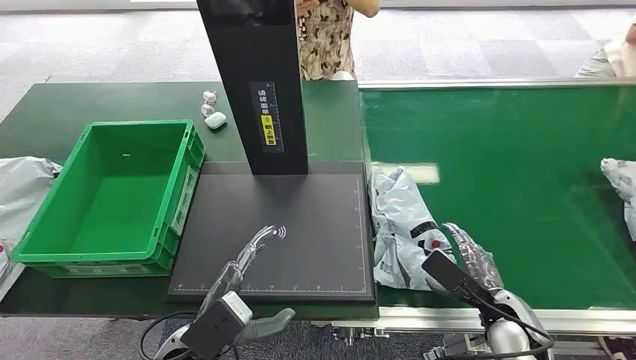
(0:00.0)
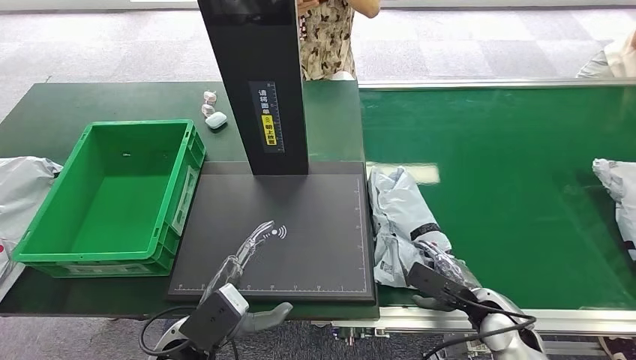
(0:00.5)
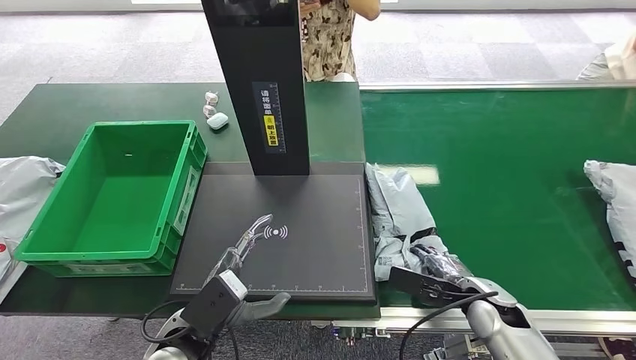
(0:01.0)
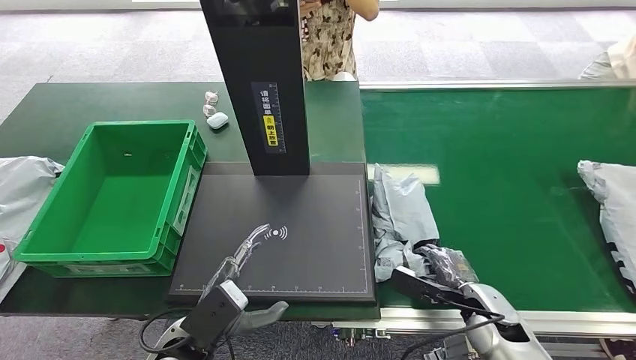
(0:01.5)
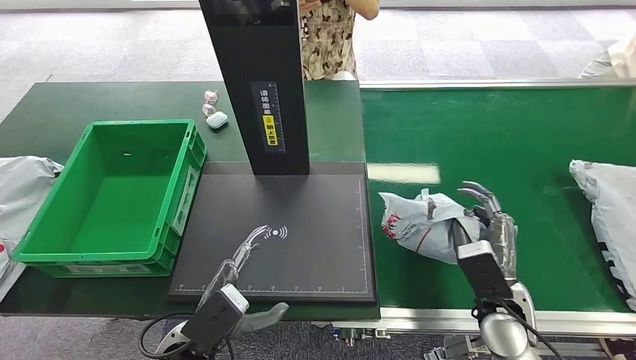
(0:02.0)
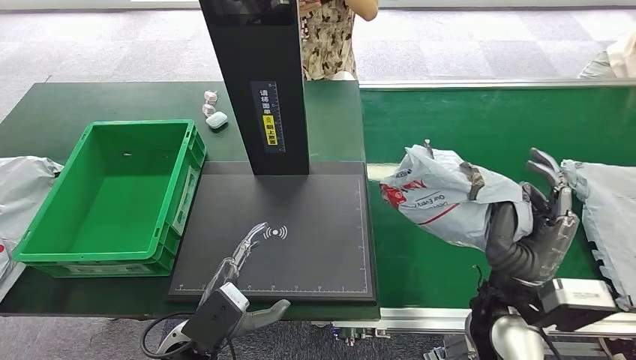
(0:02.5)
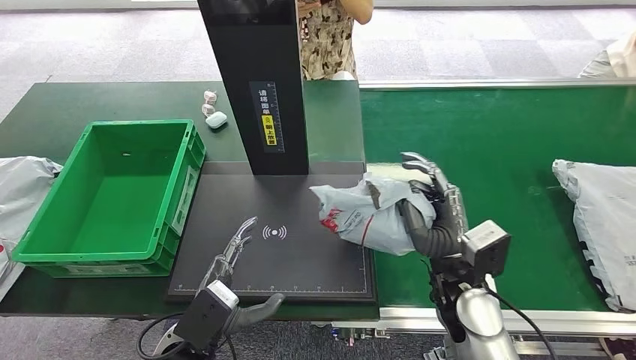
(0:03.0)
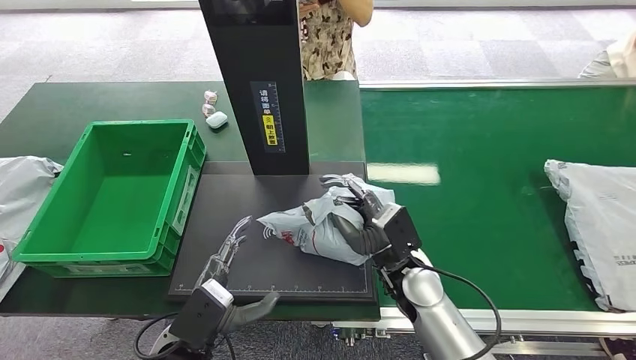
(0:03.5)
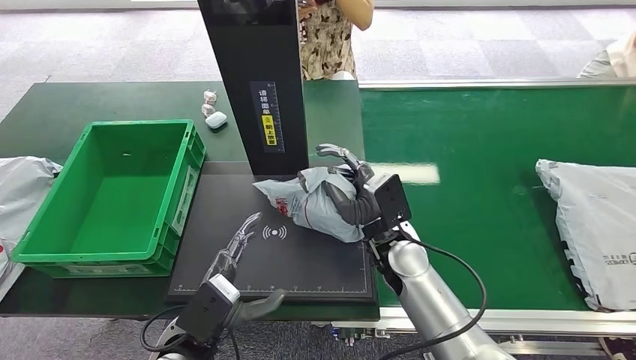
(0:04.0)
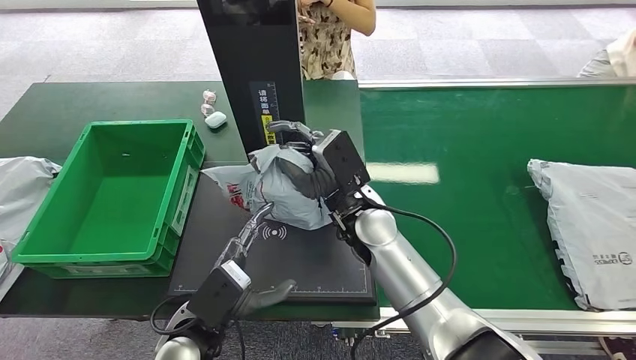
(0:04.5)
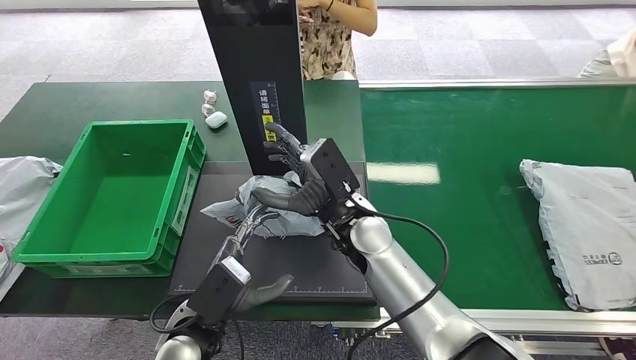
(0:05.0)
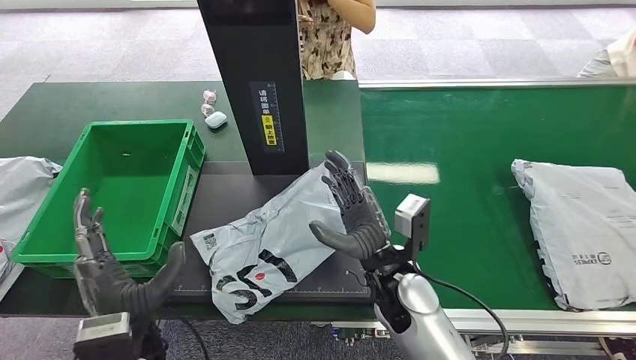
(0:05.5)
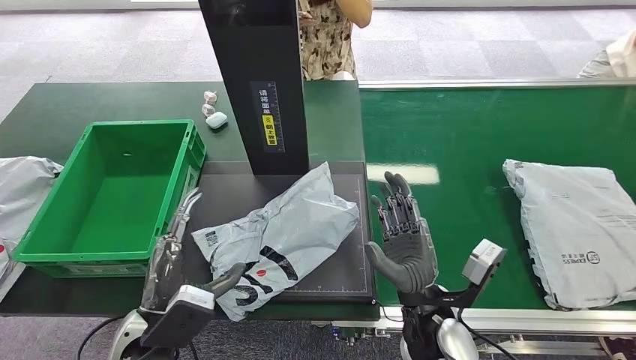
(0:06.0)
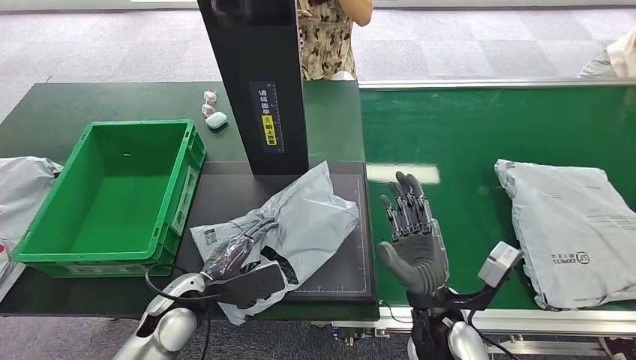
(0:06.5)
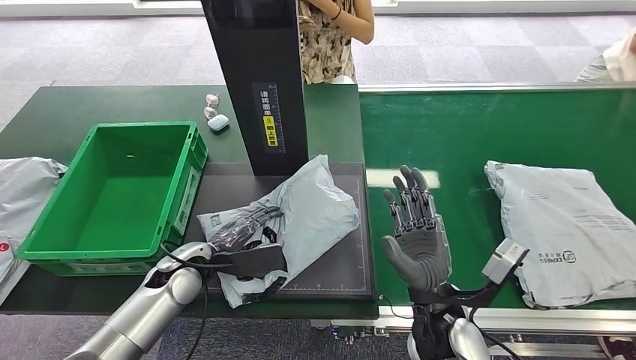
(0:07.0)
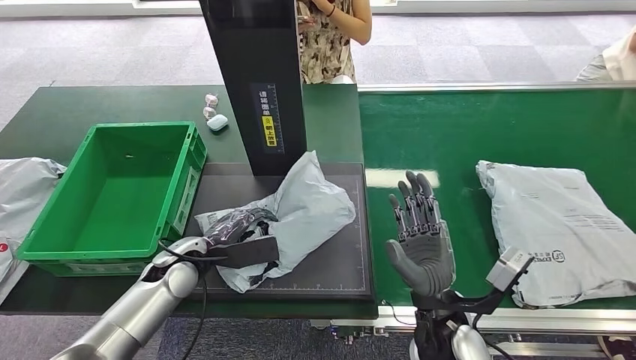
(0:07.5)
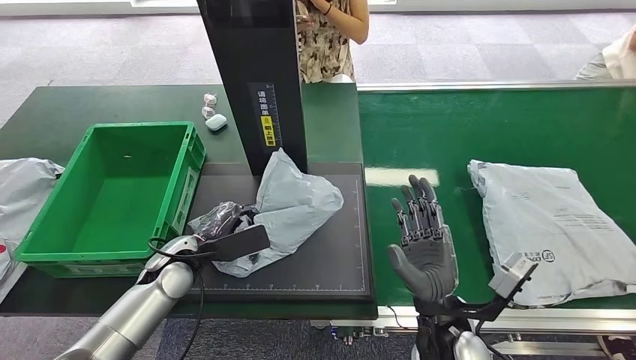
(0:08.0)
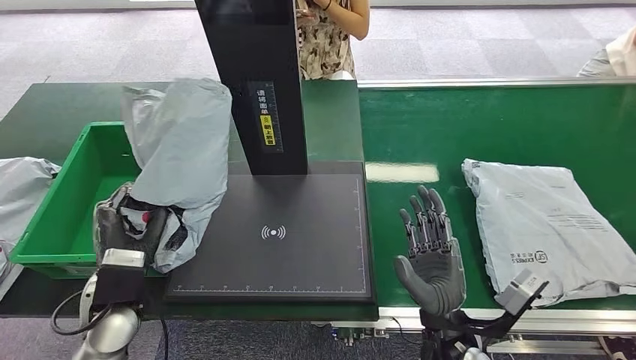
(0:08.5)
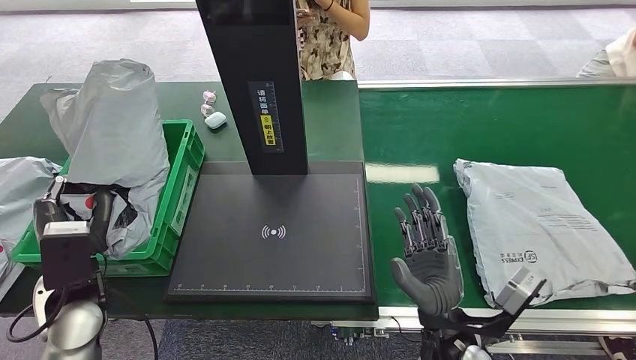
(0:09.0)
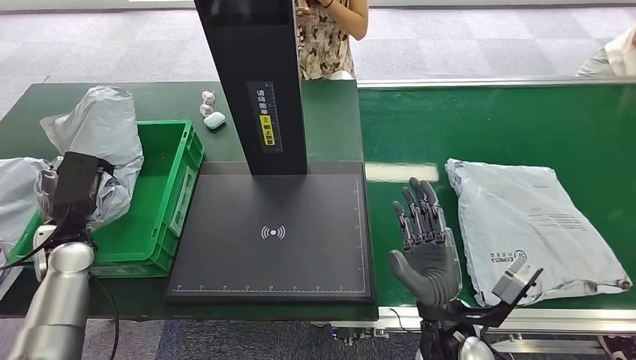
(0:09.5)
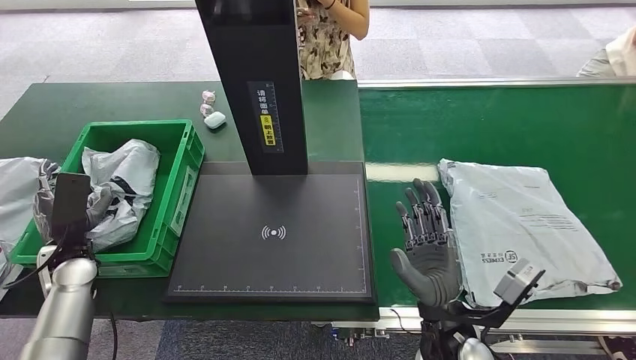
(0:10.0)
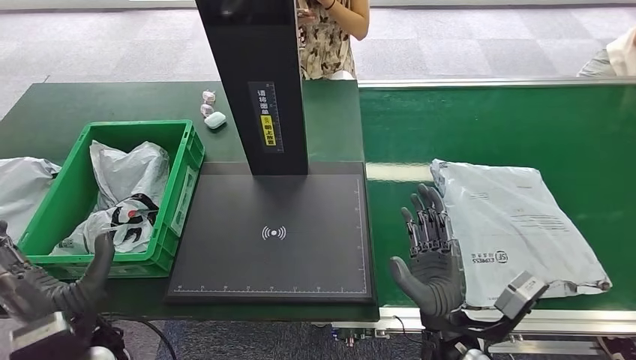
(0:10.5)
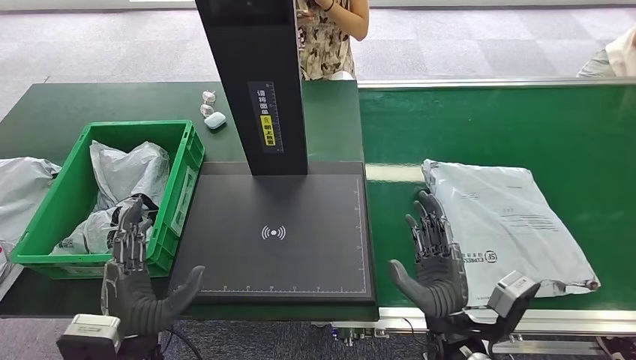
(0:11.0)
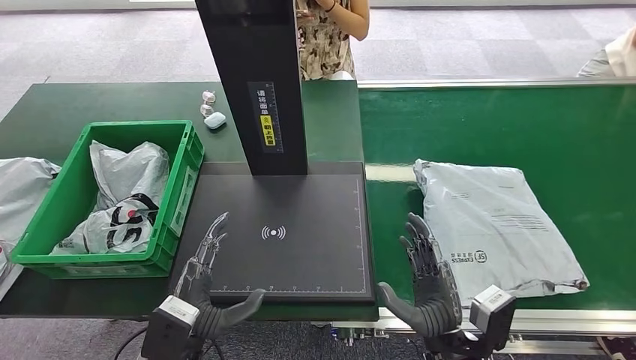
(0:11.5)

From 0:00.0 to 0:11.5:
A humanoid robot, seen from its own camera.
Step, from 0:00.0 to 0:02.5: Pick up the package from the conveyor belt.
Step, from 0:03.0 to 0:06.5: Place the package onto the inbound machine.
Step, from 0:07.0 to 0:08.5: Pick up the package from the inbound machine.
Step, from 0:09.0 to 0:11.5: Place the package into the parcel locker.

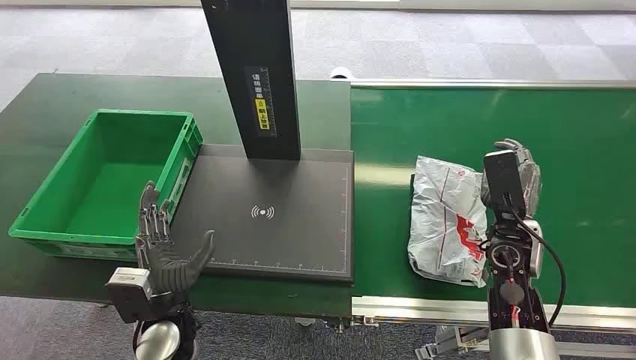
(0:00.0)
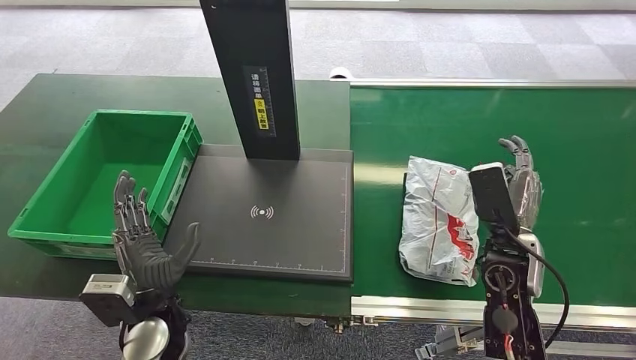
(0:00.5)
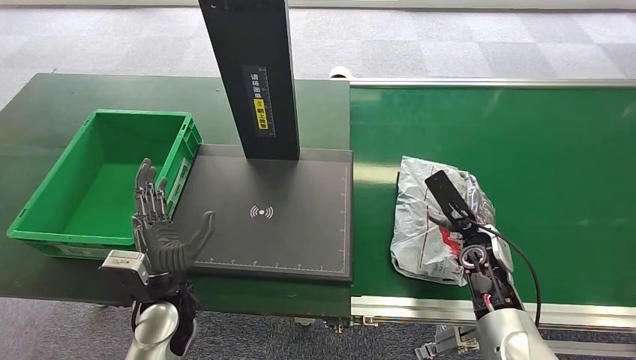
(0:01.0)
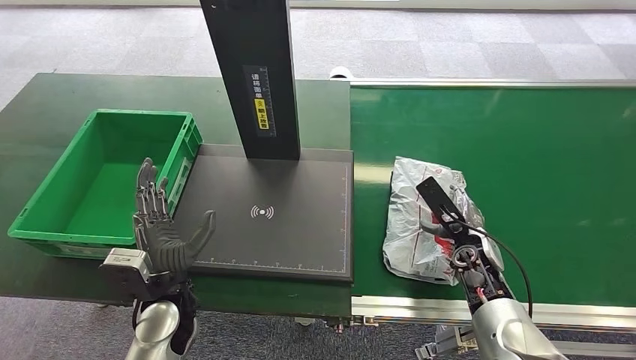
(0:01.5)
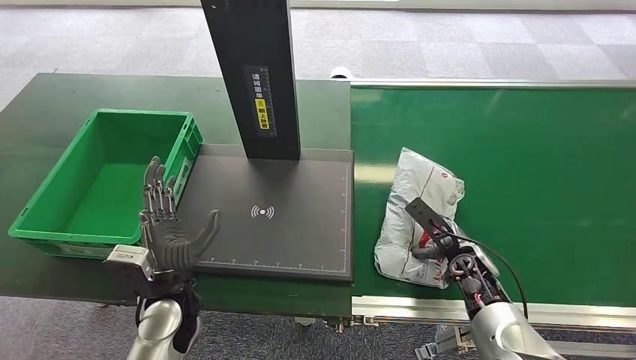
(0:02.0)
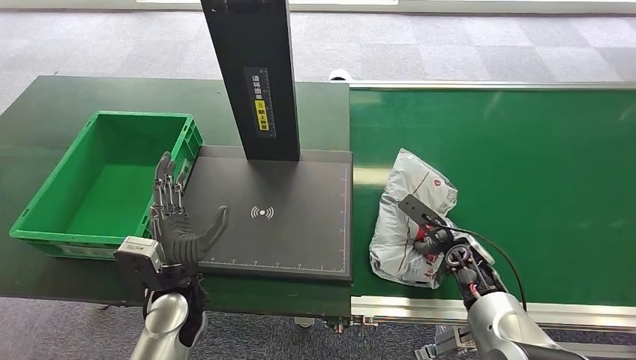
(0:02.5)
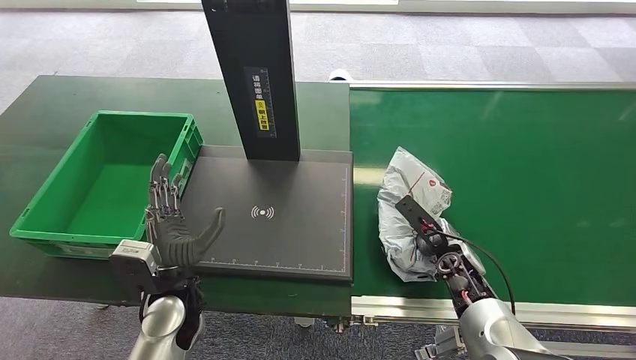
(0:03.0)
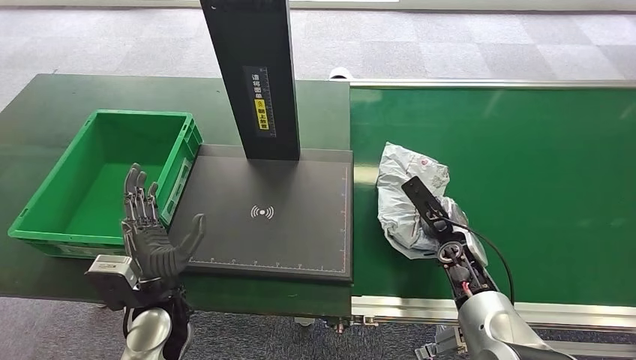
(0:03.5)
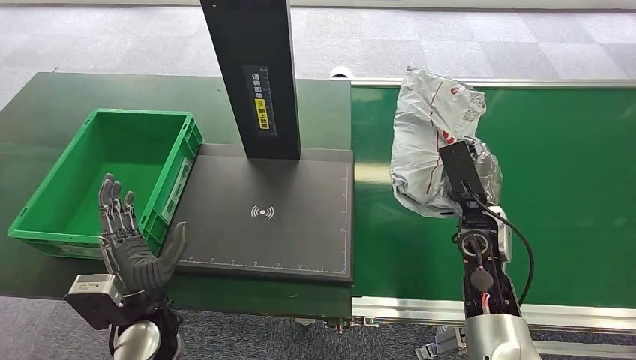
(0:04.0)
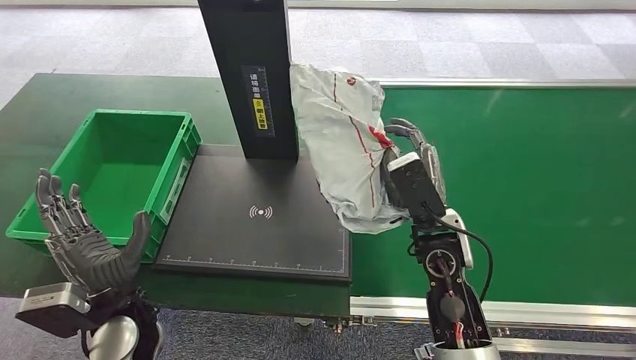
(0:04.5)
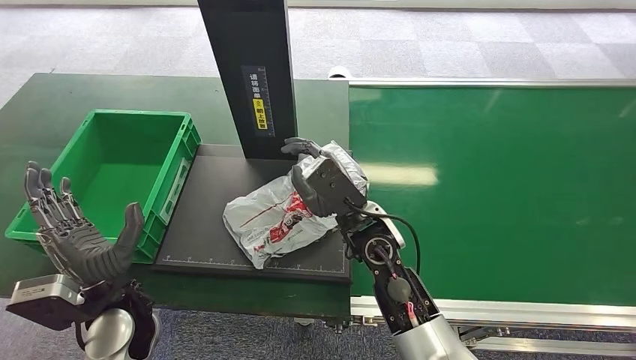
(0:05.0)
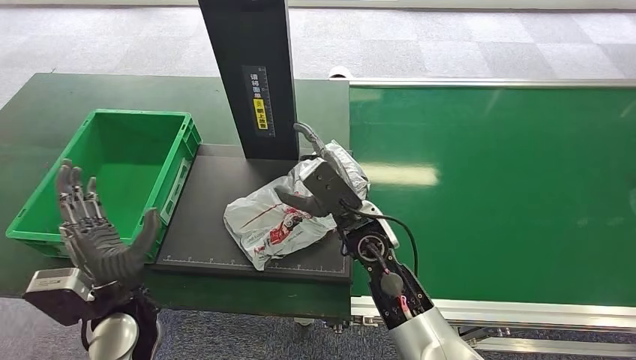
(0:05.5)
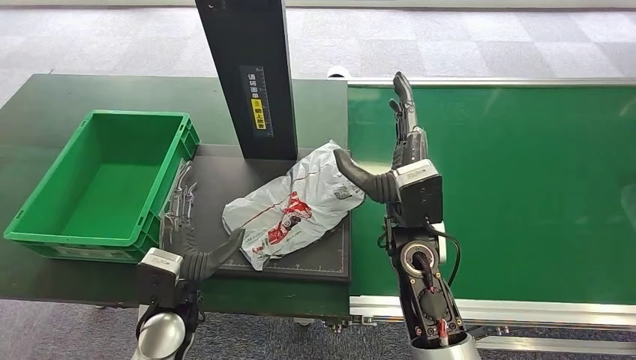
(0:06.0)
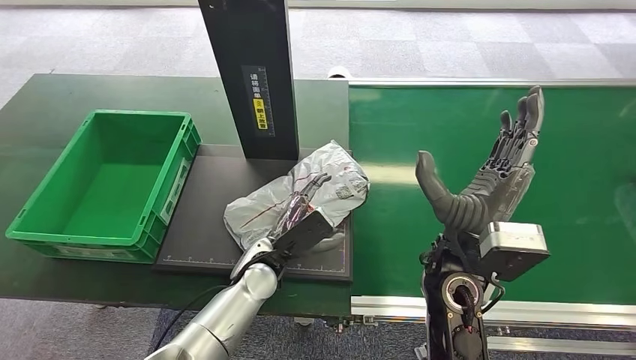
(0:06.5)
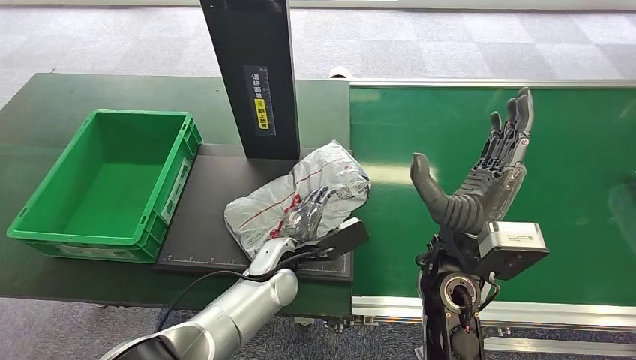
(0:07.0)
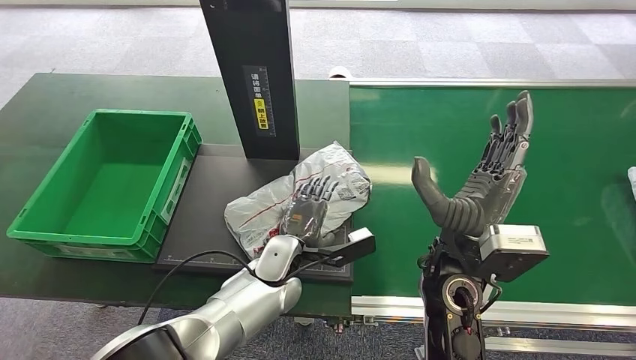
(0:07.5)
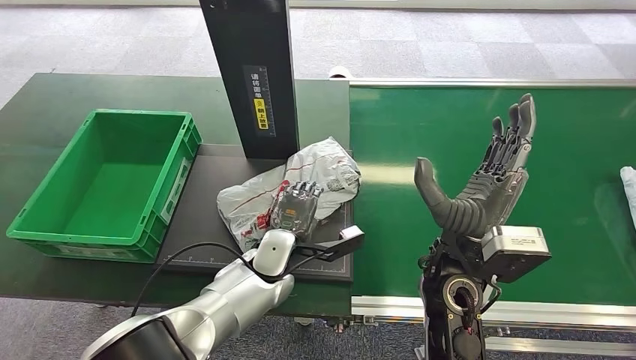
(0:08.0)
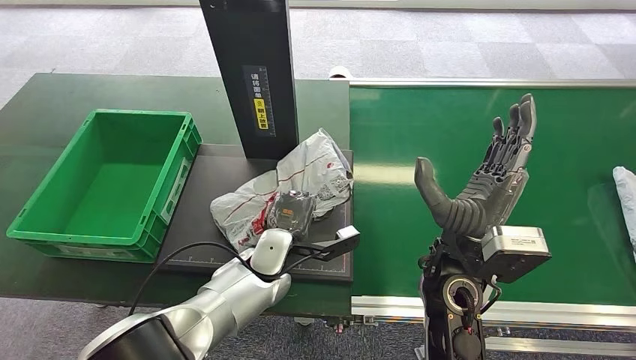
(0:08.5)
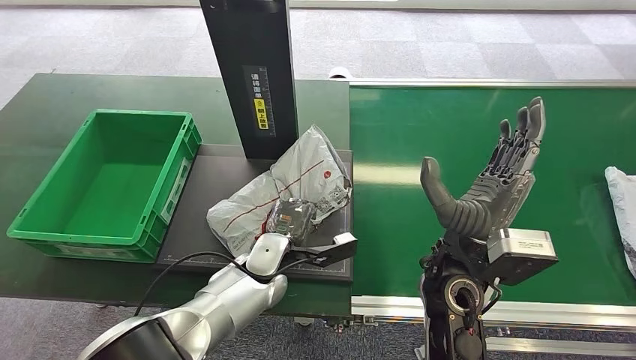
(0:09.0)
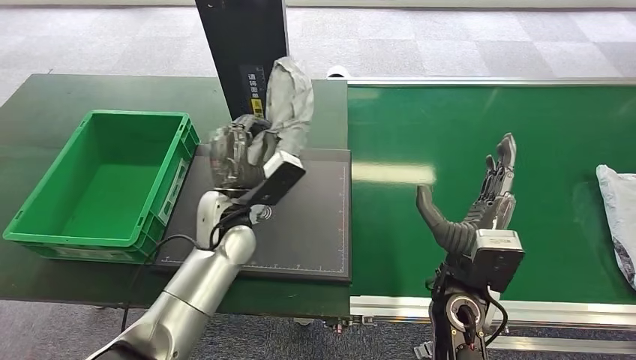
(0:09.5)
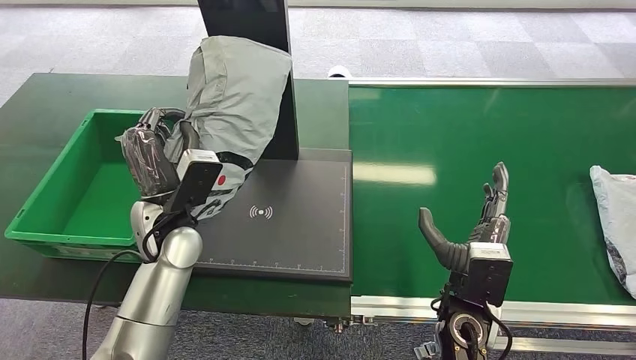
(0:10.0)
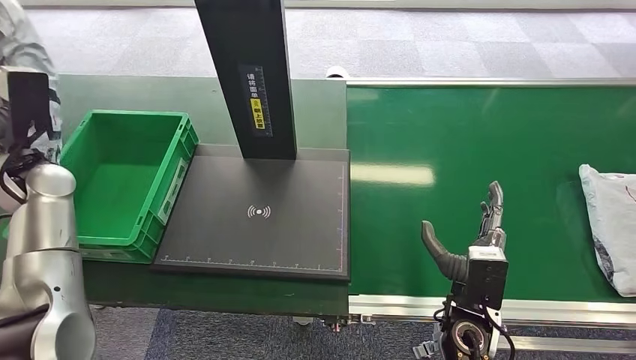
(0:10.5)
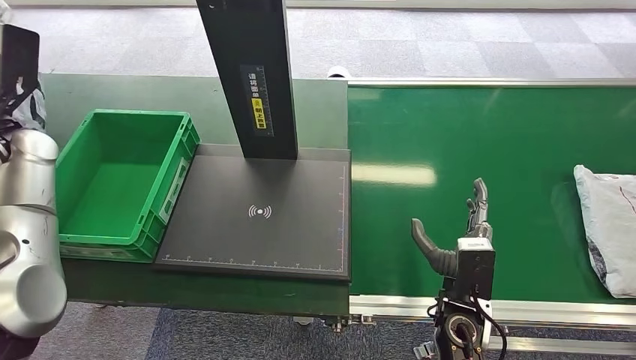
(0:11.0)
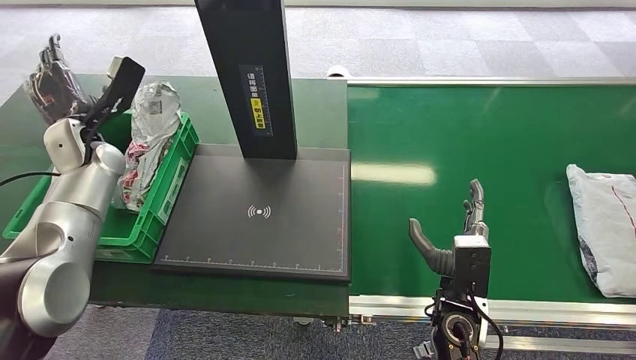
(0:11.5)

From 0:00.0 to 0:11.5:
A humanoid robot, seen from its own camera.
Step, from 0:00.0 to 0:04.0: Pick up the package from the conveyor belt.
Step, from 0:04.5 to 0:06.0: Place the package onto the inbound machine.
Step, from 0:06.5 to 0:09.5: Pick up the package from the inbound machine.
From 0:02.0 to 0:04.0: The right hand shifts some 10 cm upward.
